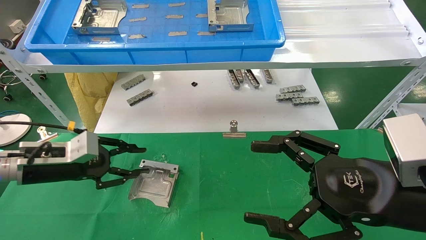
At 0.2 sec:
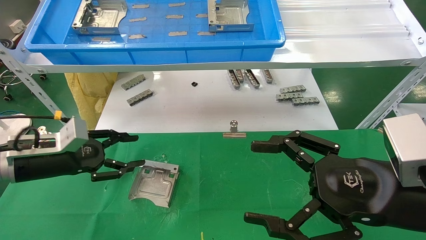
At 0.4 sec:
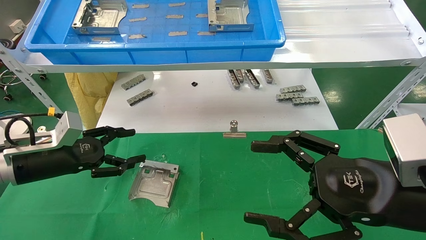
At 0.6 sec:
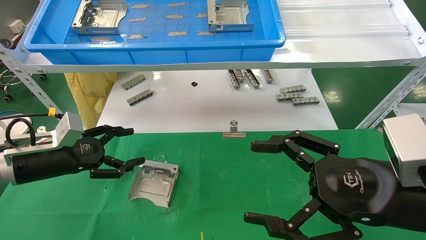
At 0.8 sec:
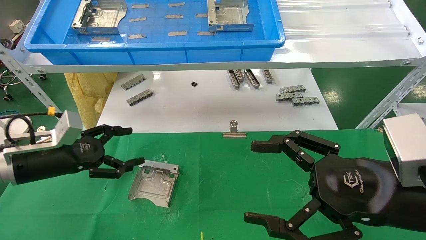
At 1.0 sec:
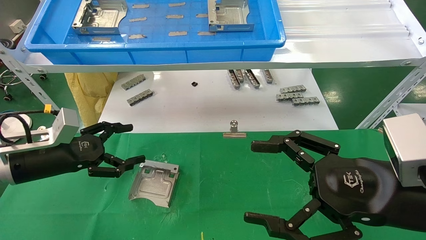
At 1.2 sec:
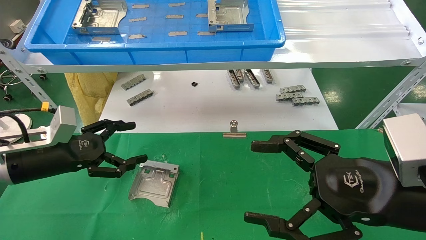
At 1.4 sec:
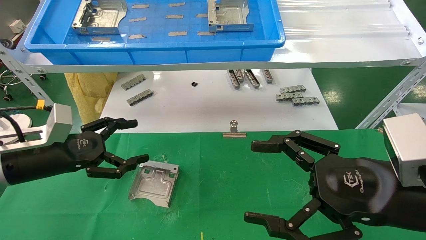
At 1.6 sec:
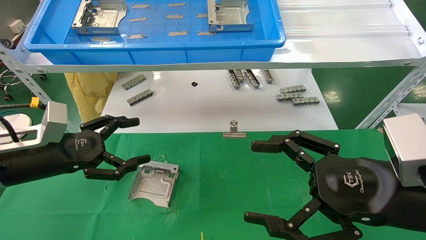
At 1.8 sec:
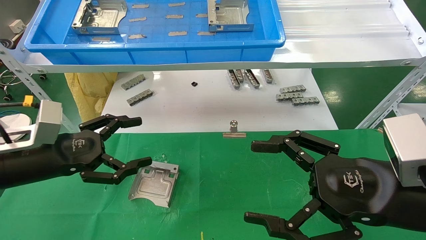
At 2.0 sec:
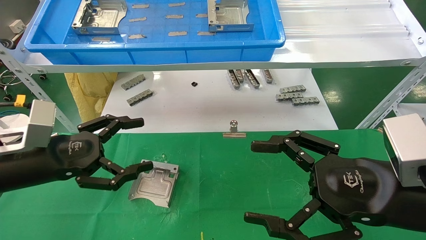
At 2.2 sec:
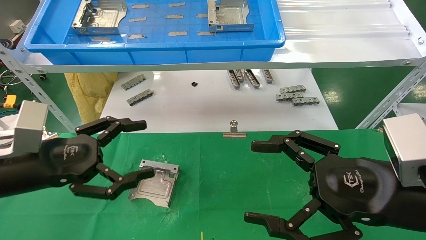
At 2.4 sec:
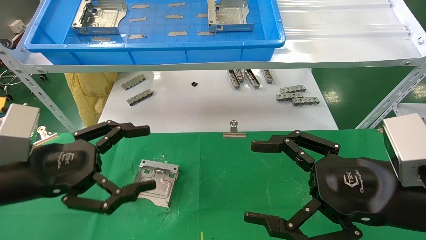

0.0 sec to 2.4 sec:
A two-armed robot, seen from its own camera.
Task of the whole recording: use the mechanical arm to pick up the parts and place them on the table.
0.0 sec to 1.2 sec: The left gripper opens its fingers.
1.2 sec to 2.4 sec: The left gripper moves backward, roughly 10 cm.
